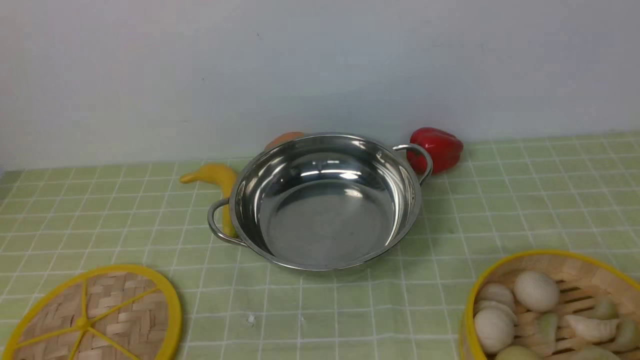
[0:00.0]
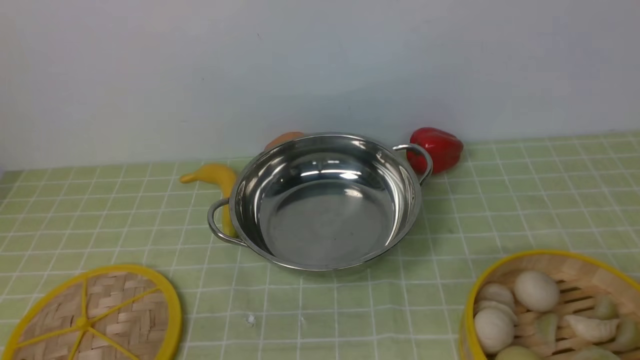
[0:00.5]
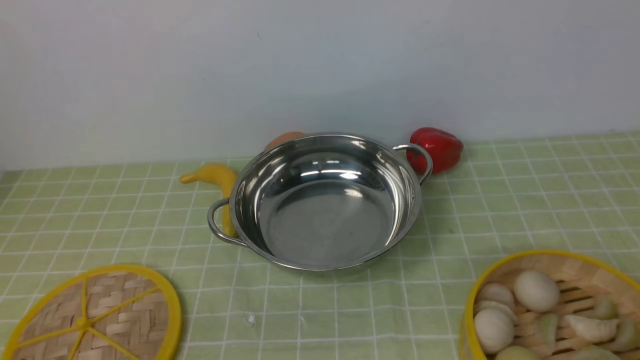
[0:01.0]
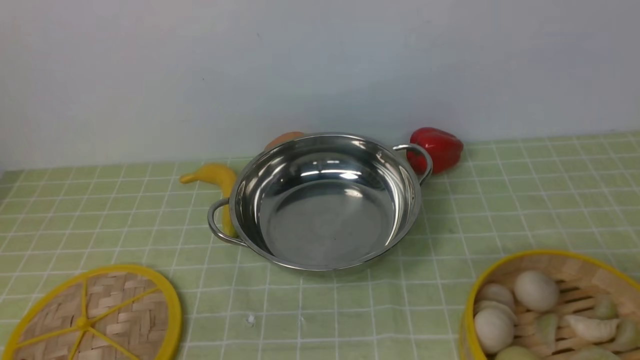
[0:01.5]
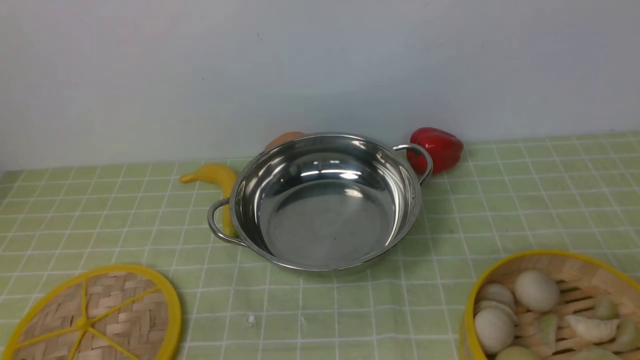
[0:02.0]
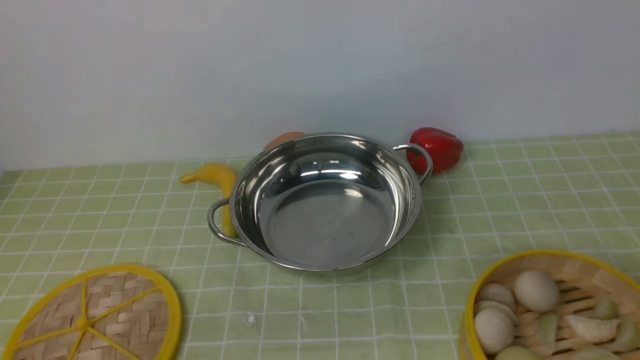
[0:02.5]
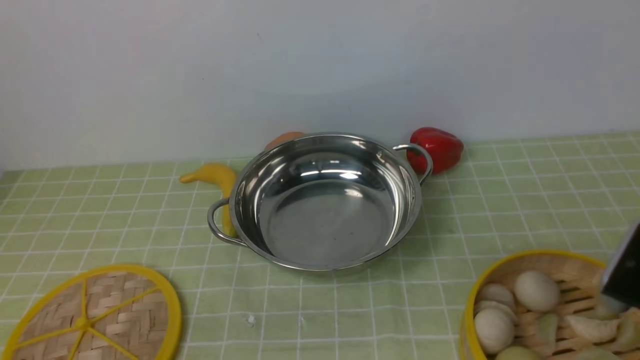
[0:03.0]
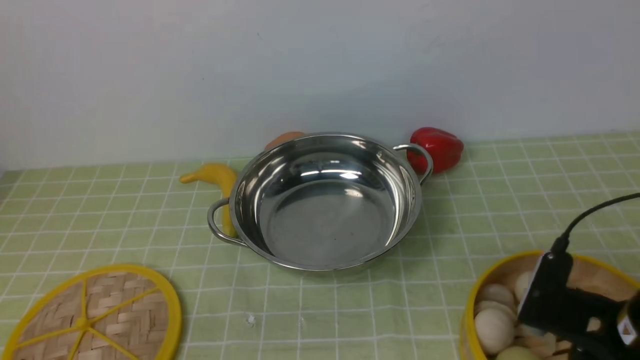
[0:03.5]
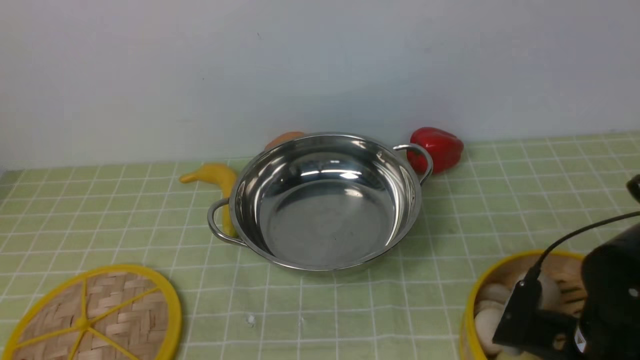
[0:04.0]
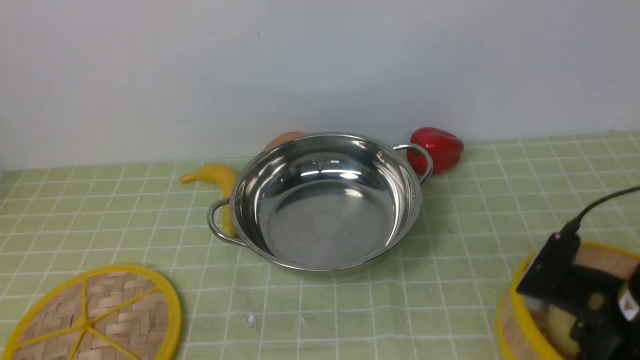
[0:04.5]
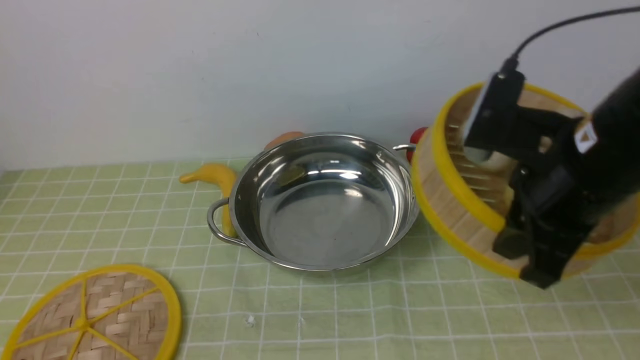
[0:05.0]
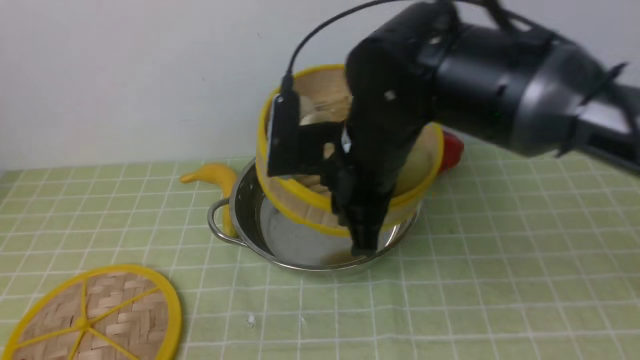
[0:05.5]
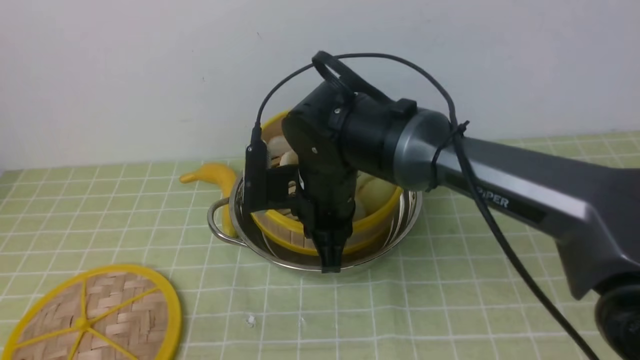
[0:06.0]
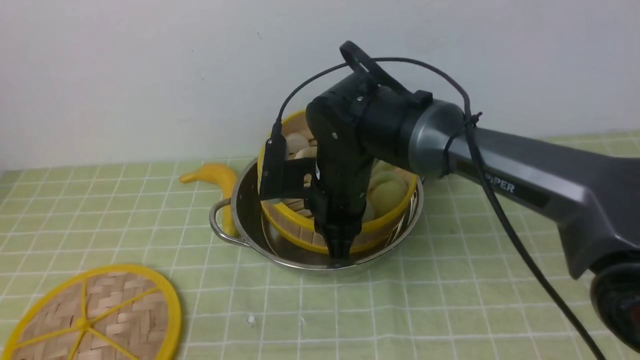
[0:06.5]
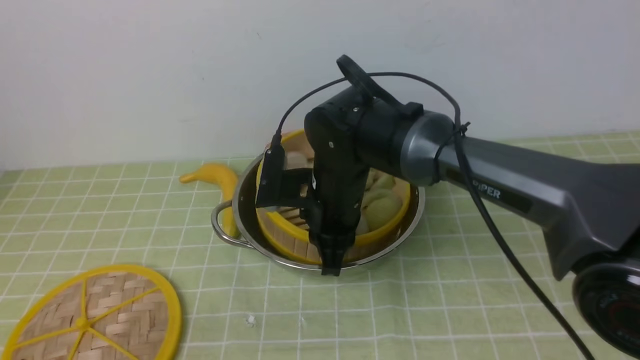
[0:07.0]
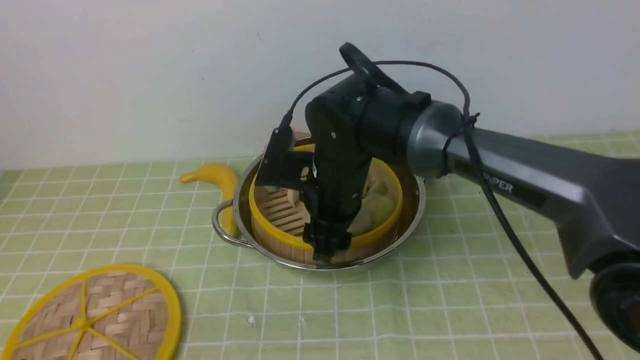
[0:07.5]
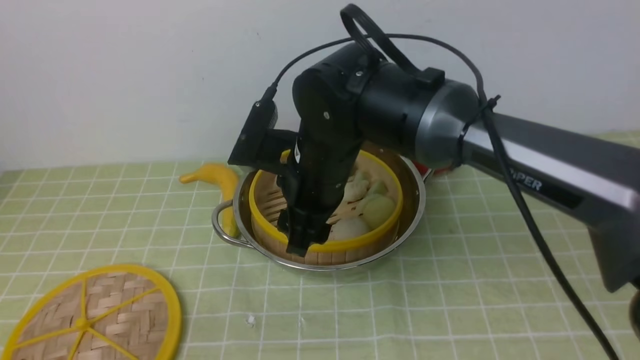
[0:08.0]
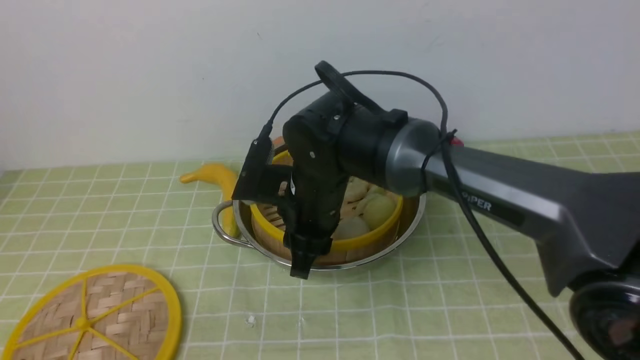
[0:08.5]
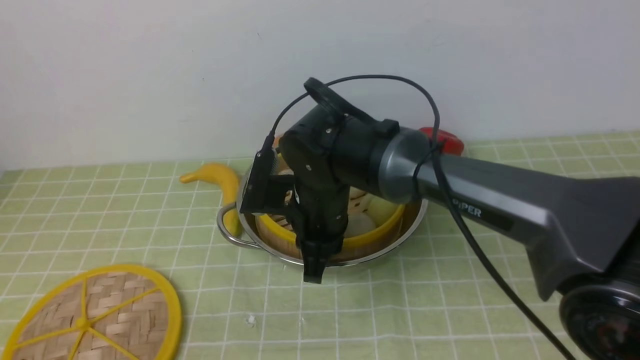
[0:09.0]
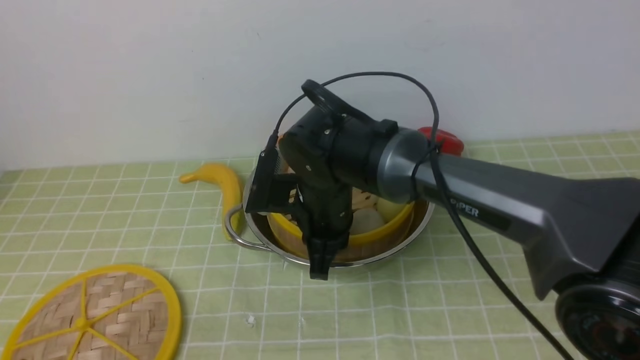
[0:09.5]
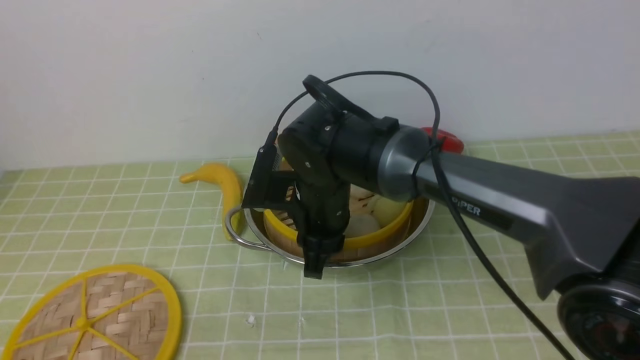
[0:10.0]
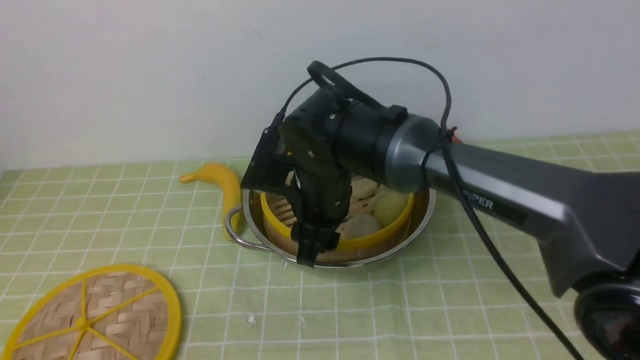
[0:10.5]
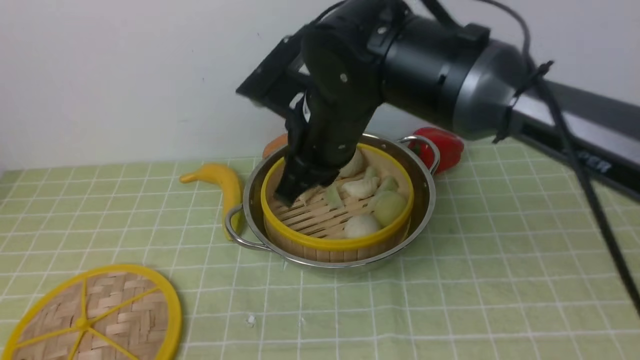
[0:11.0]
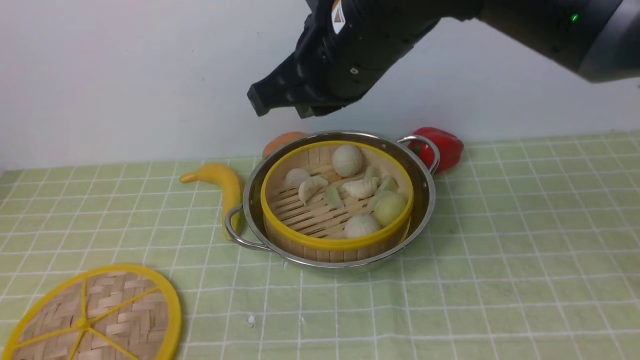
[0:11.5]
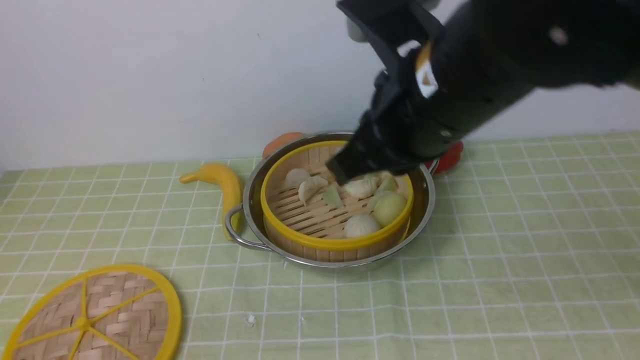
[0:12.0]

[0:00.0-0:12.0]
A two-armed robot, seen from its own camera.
Task of the whole recording: place the steamer in the pot on the green tablecloth, and put the lid on the steamer.
Step, 0:00.0 to 0:04.5: use the right arm to lift the steamer closest to it.
Step, 0:05.0 to 0:11.0: use the right arm to put the steamer into the iron steamer pot in the middle.
0:02.0 to 0:04.0: The right gripper moves forward and downward, approximately 25 cm.
0:04.0 to 0:06.0: The right gripper moves to the left and forward, roughly 25 cm, and closes.
0:06.0 to 0:08.0: The right gripper opens.
0:08.0 to 0:10.0: The right gripper shifts by roughly 5 cm, and closes its fingers.
0:10.0 to 0:12.0: The right gripper travels upward, to the right and backward by about 25 cm, and closes up.

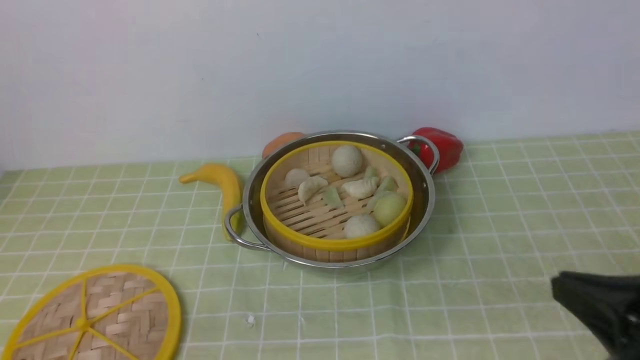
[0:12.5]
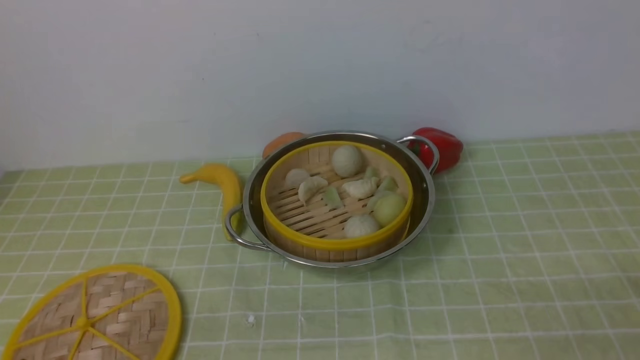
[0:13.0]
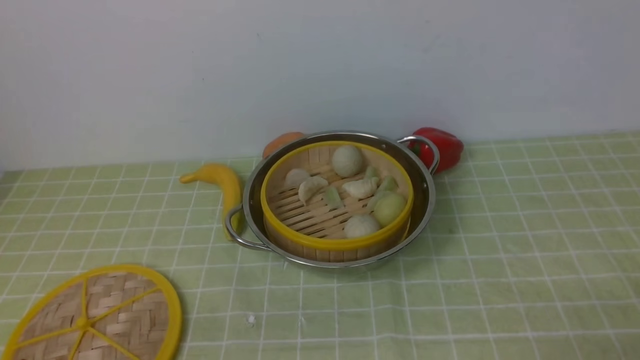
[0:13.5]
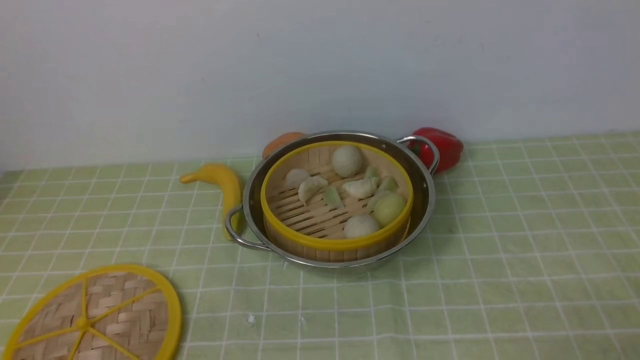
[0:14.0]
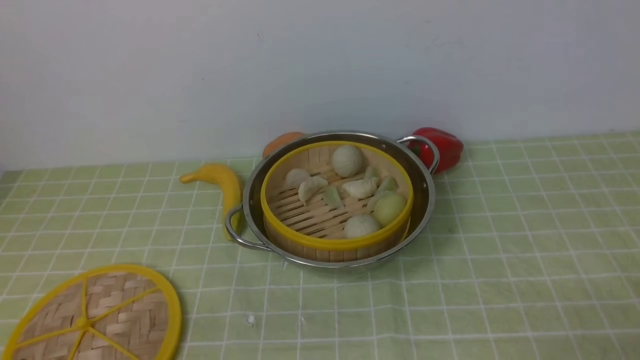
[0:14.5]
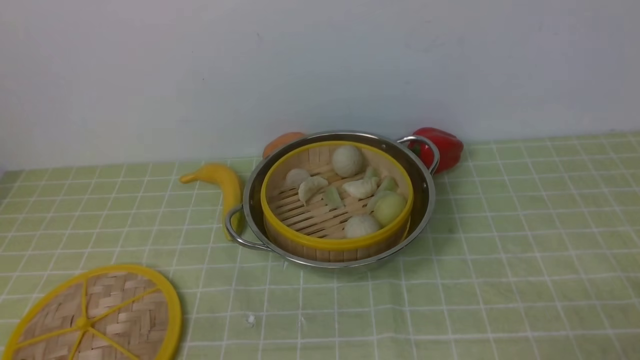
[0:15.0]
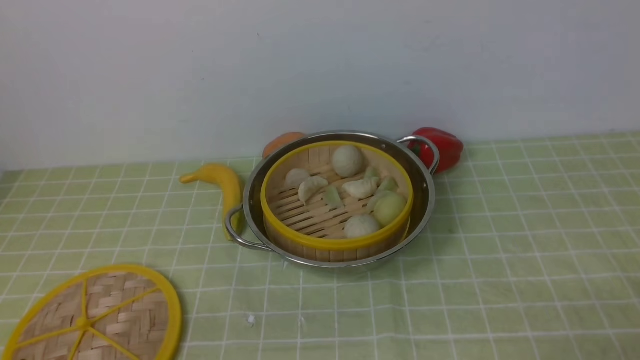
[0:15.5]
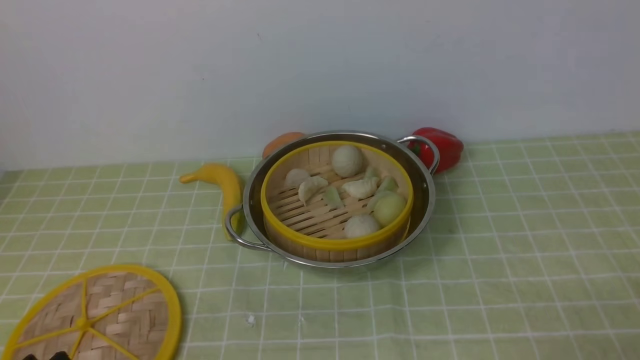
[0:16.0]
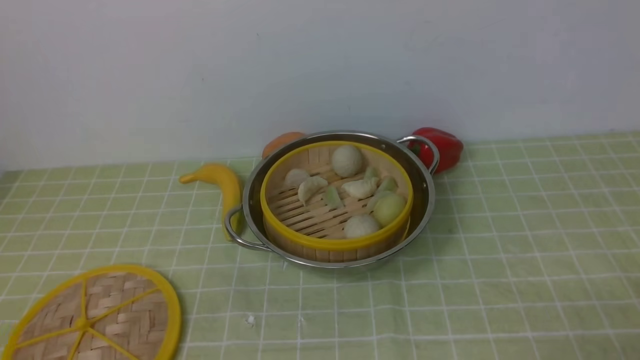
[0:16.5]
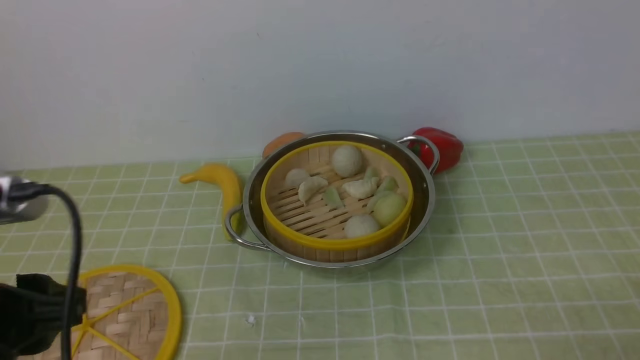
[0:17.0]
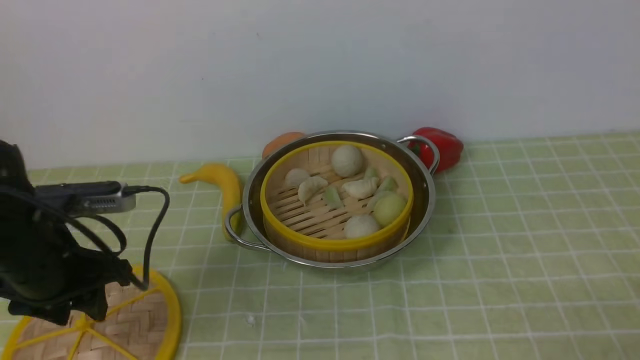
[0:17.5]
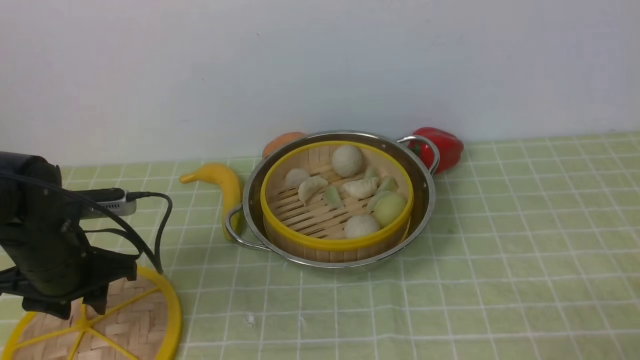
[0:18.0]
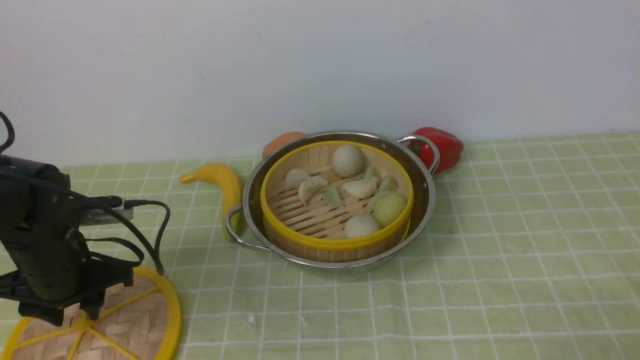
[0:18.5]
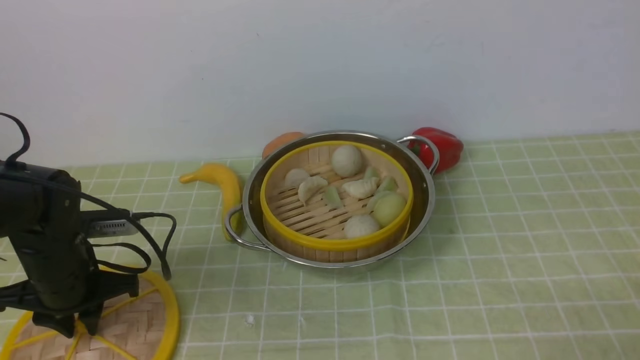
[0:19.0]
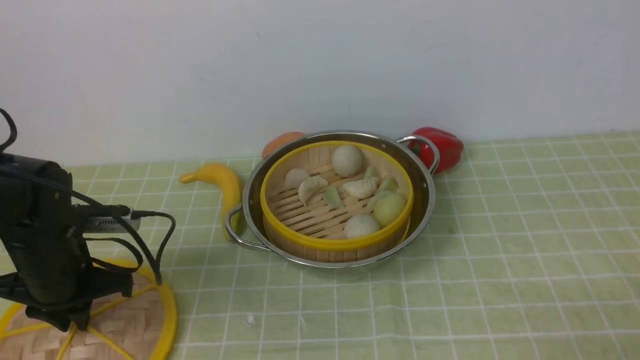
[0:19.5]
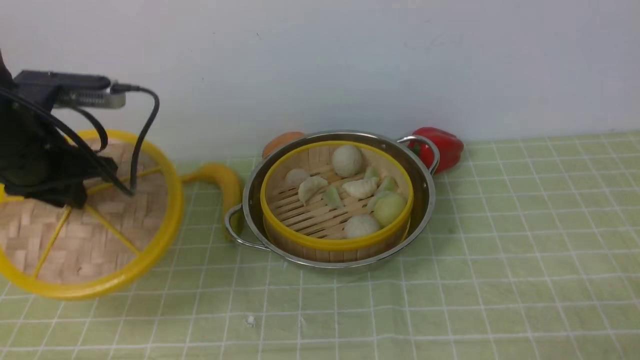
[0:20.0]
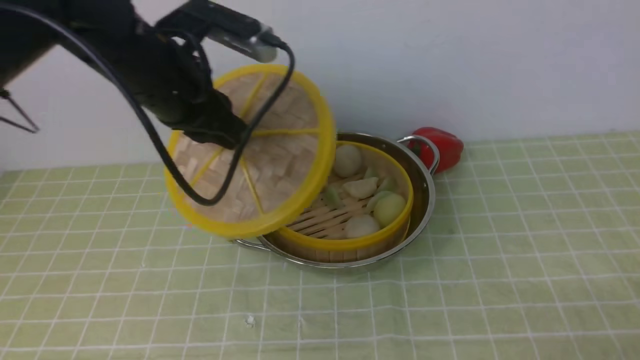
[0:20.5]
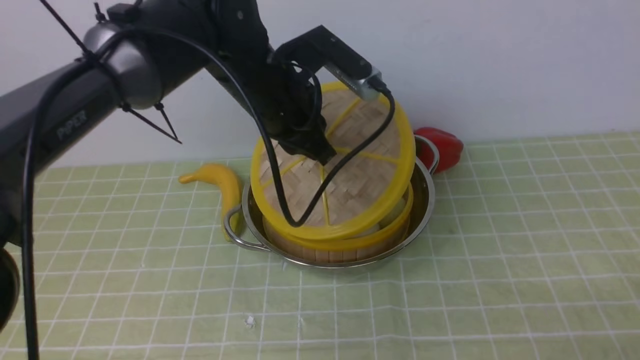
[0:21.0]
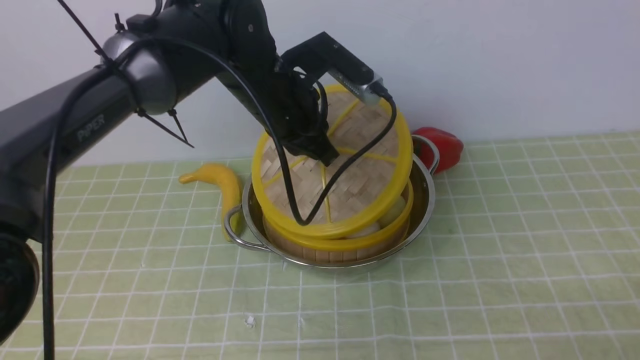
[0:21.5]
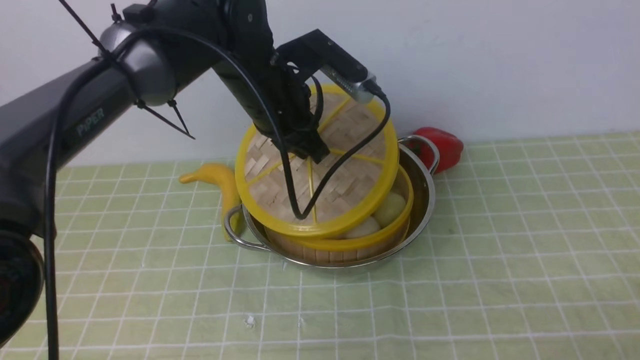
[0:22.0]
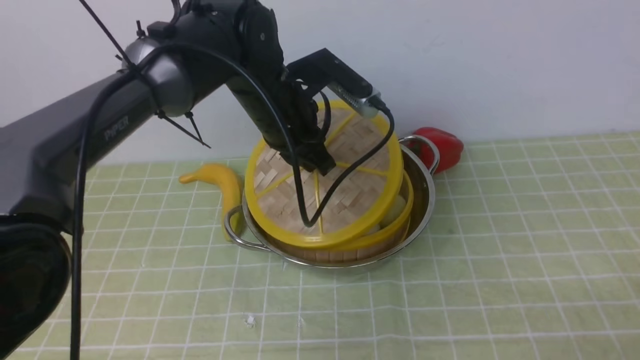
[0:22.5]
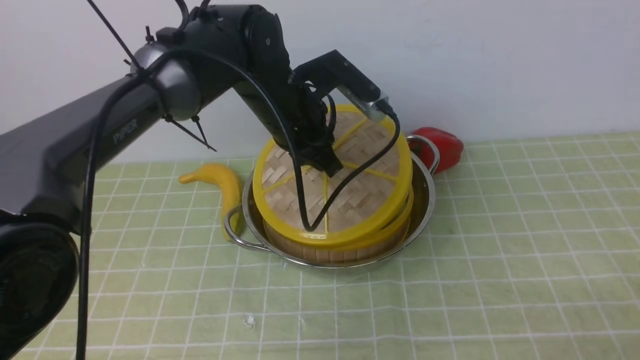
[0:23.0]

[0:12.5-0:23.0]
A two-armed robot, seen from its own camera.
Task of the whole recording: place the steamer in the pot on the green tablecloth, and put the lid on the steamer.
Step, 0:12.5 to 0:20.0: use the left arm to lift the lid of the steamer.
0:12.5 to 0:14.5: The right gripper travels downward, to the right and backward by some 10 cm, and opens up.
0:16.5 to 0:19.0: The left gripper goes about 25 cm forward.
0:19.0 to 0:21.0: The left gripper shifts roughly 30 cm to the right, upward and forward.
